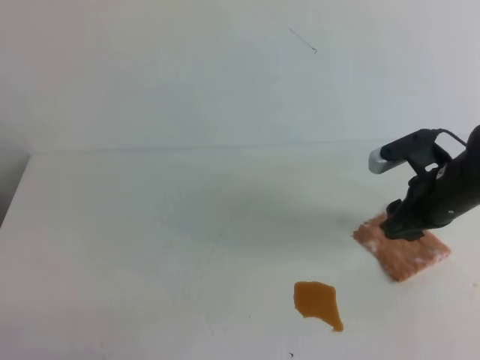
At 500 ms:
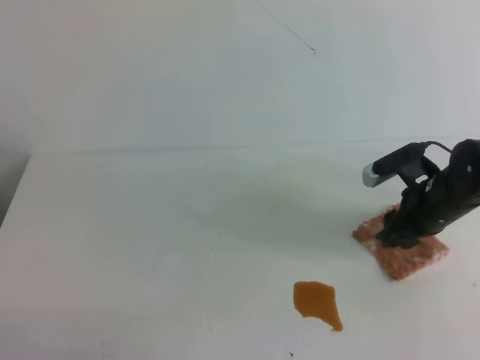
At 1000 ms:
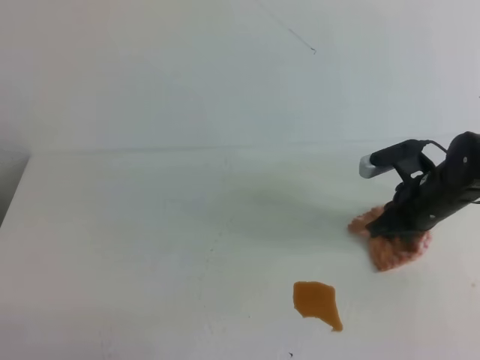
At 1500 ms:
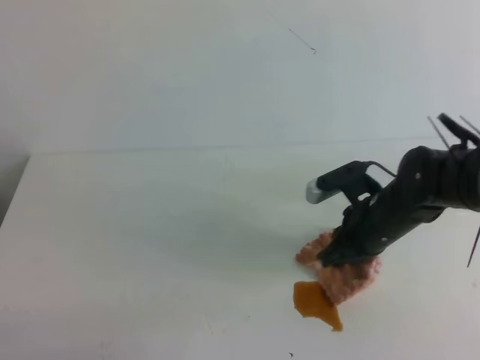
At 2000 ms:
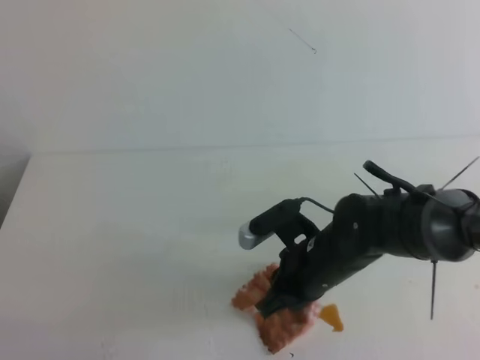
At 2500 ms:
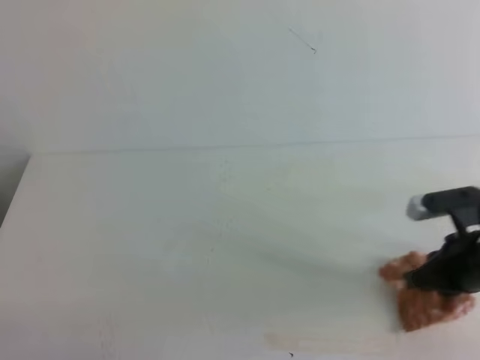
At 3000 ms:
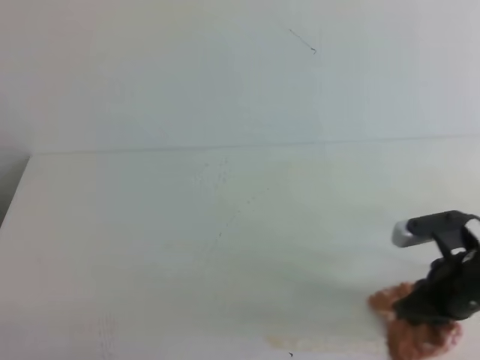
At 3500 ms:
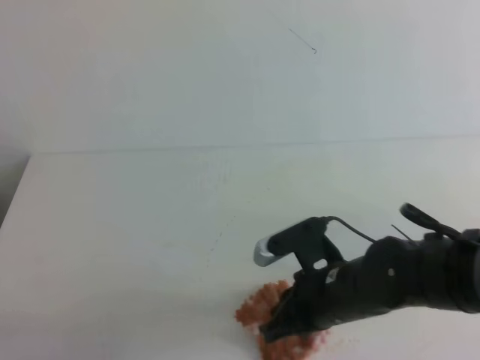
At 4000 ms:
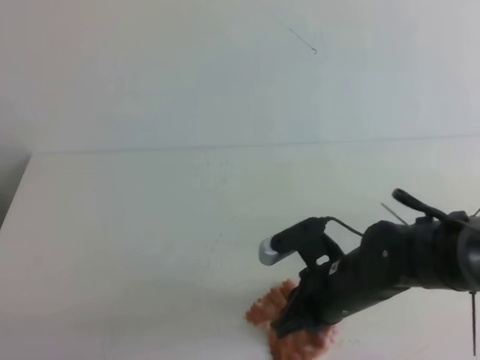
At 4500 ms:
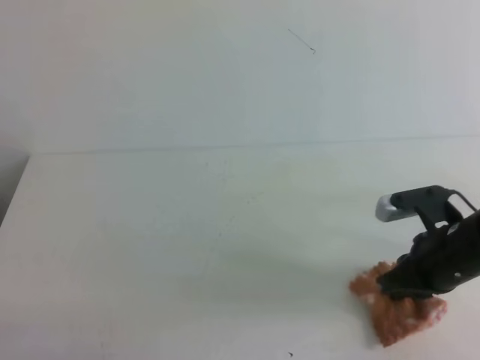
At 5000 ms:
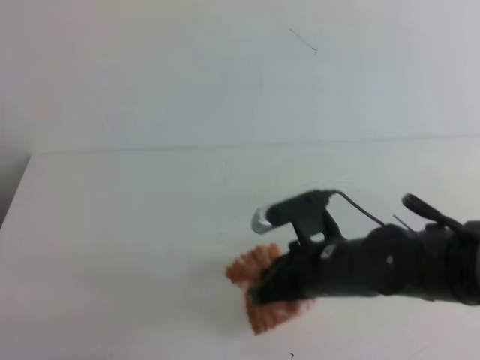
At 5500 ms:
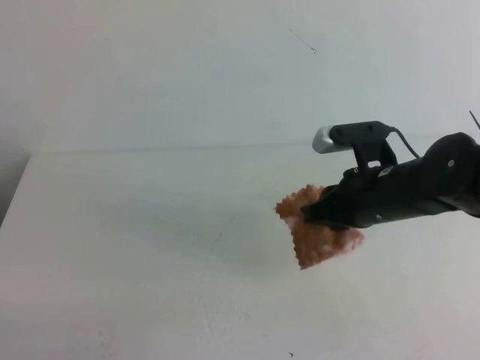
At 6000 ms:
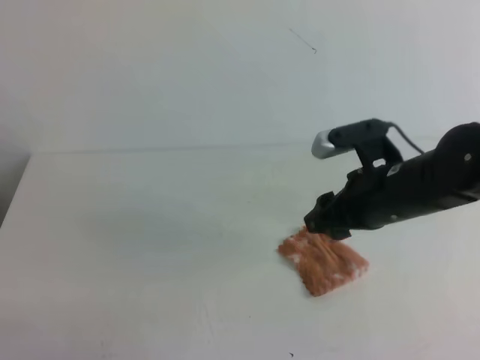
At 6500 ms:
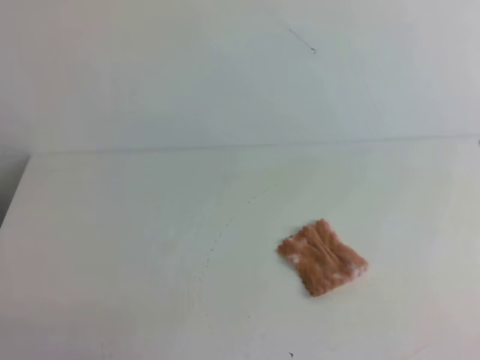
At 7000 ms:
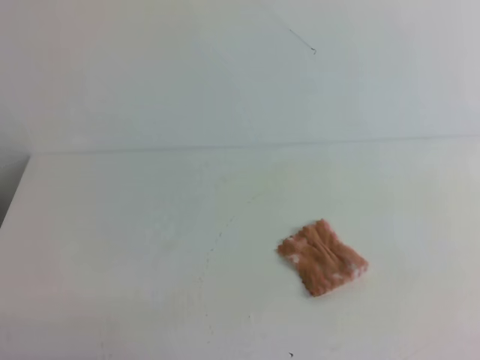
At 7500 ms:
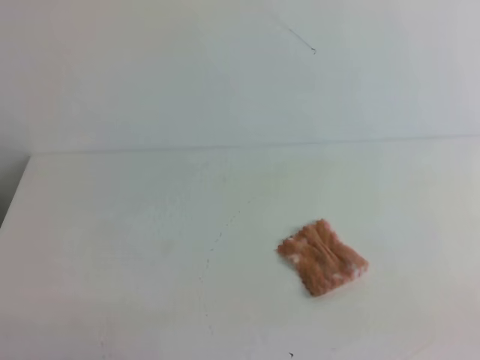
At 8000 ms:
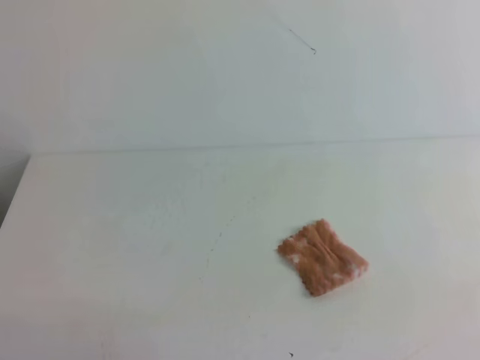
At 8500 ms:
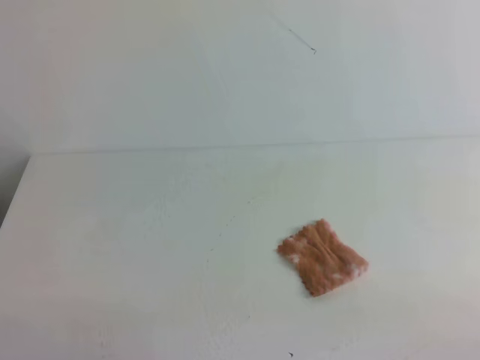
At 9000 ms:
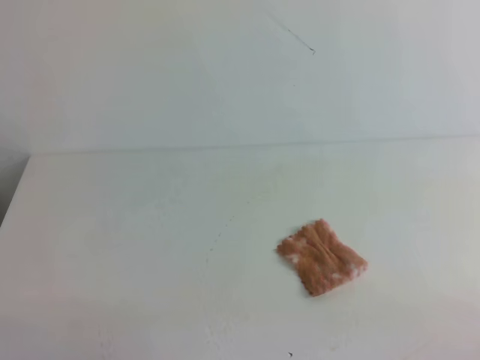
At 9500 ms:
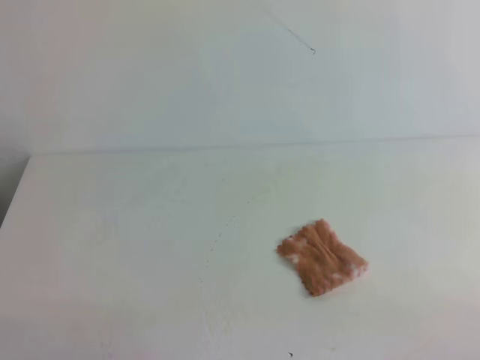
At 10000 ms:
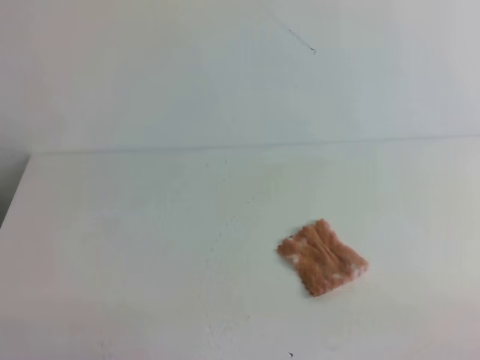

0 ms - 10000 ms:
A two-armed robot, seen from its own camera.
0 ms - 2000 ms: The right gripper travels to the left, backward and downward by some 15 cm, and closes.
2000 ms - 4000 ms: The right gripper goes to the right and returns, approximately 15 cm each way.
4000 ms - 6000 ms: The right gripper travels upward by approximately 10 cm, and opens up.
6000 ms - 8000 ms: The right gripper shifts roughly 30 cm backward and to the right, and closes up.
